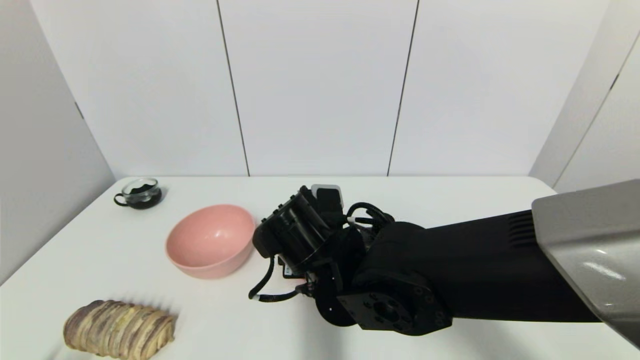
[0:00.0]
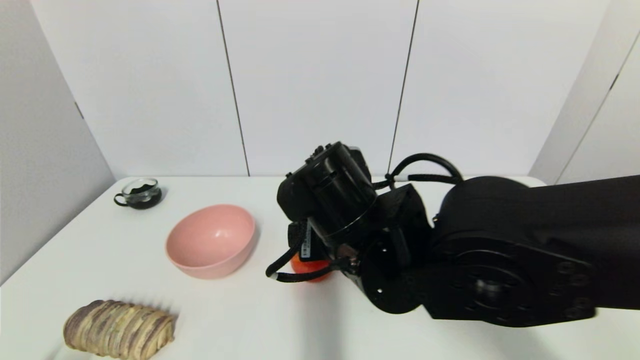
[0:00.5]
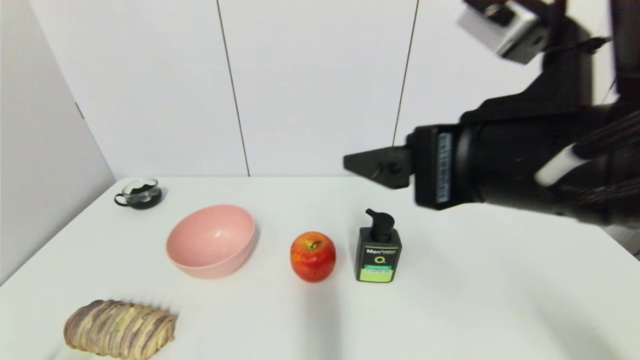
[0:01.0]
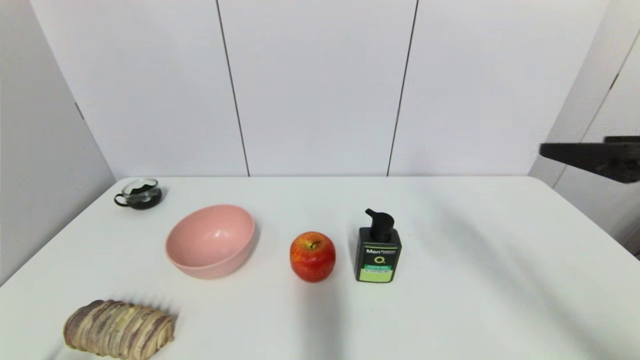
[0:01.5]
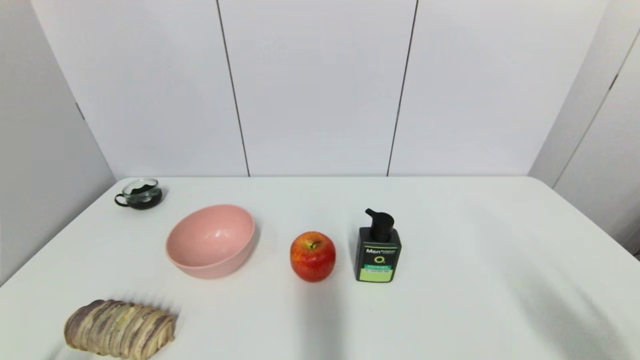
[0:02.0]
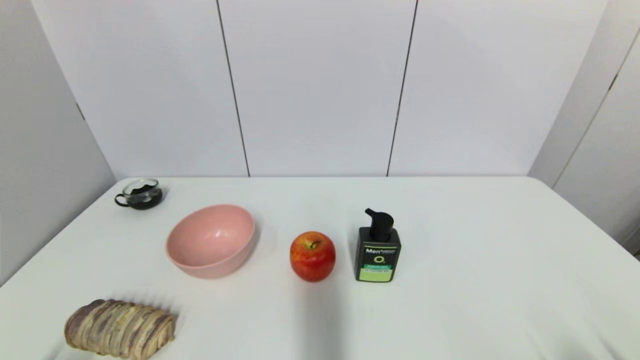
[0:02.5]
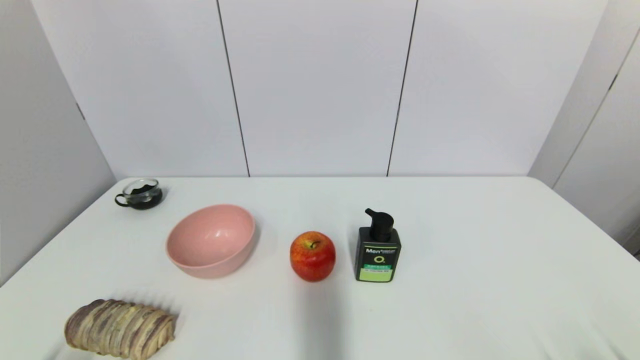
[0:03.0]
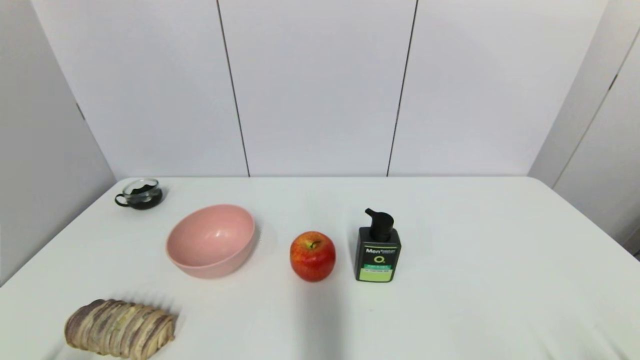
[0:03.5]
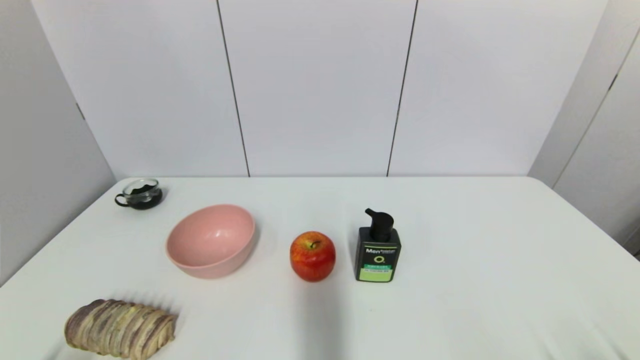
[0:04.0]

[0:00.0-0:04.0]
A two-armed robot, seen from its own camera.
Task of the whole recording: put the apple in the designated position.
0:00.0 to 0:02.0: The right gripper moves to the right and backward, roughly 40 cm.
0:02.0 to 0:04.0: The right gripper shifts about 15 cm downward.
